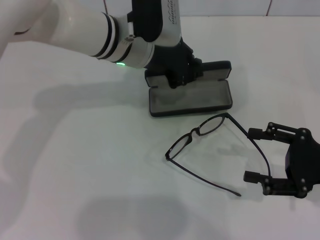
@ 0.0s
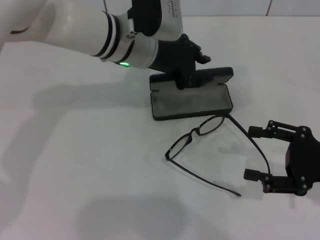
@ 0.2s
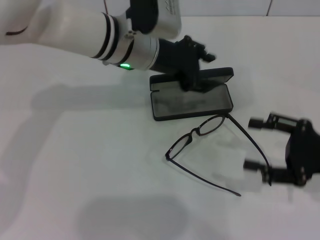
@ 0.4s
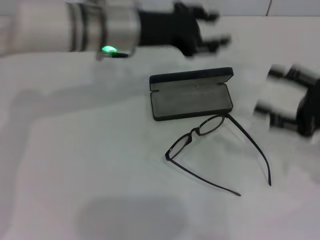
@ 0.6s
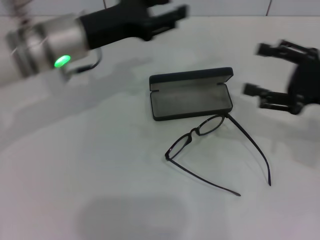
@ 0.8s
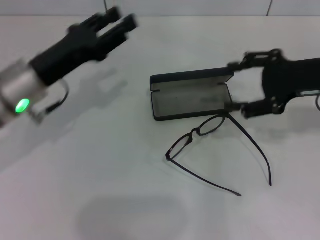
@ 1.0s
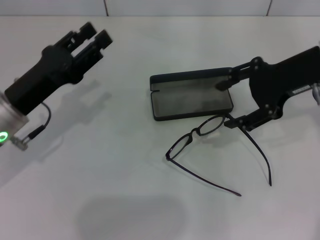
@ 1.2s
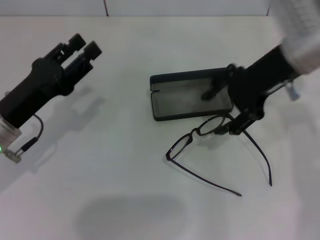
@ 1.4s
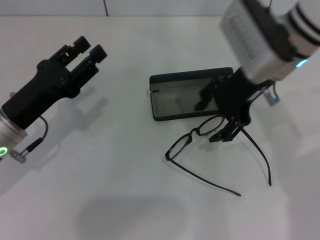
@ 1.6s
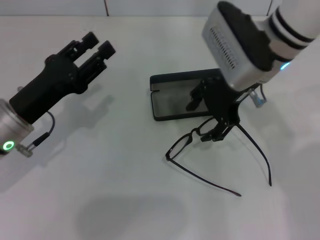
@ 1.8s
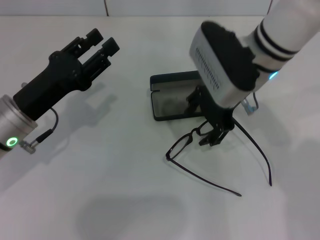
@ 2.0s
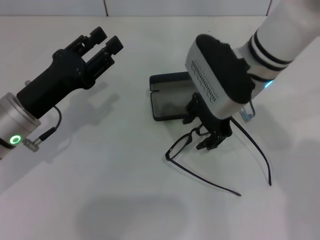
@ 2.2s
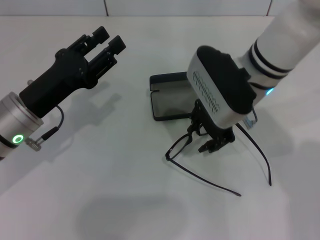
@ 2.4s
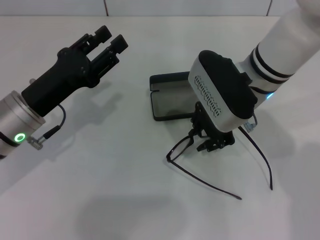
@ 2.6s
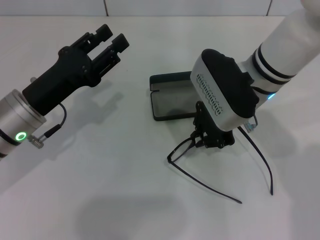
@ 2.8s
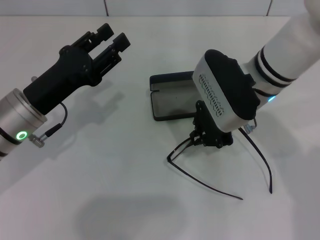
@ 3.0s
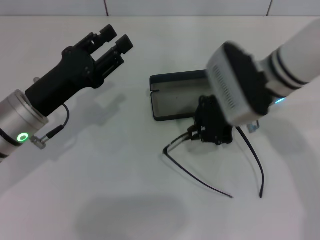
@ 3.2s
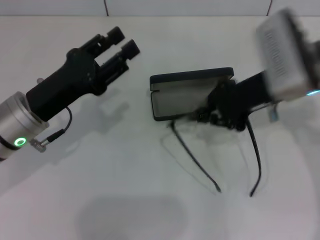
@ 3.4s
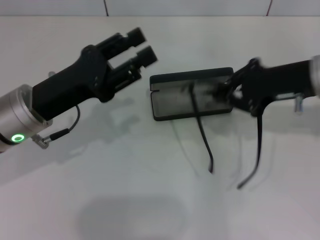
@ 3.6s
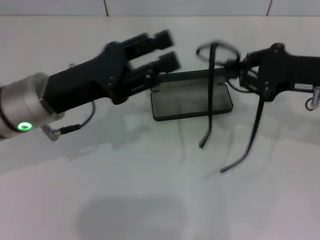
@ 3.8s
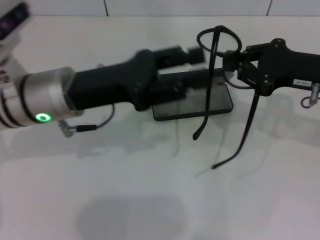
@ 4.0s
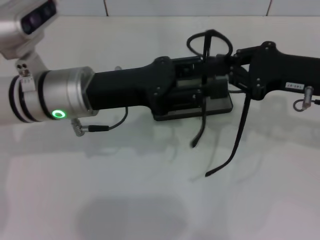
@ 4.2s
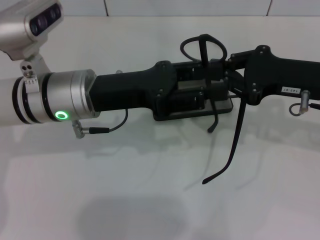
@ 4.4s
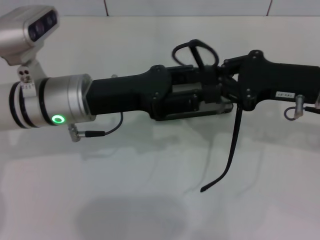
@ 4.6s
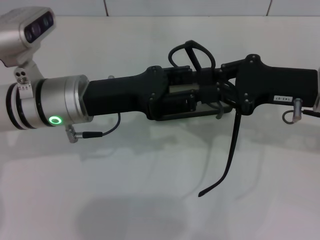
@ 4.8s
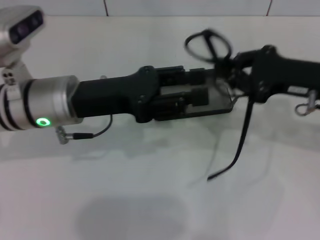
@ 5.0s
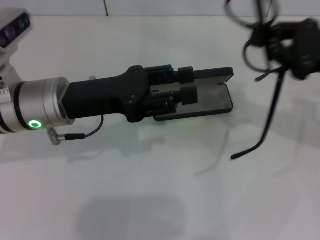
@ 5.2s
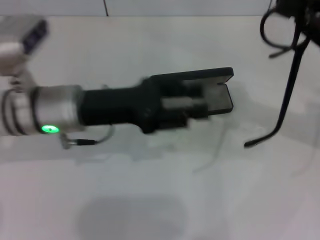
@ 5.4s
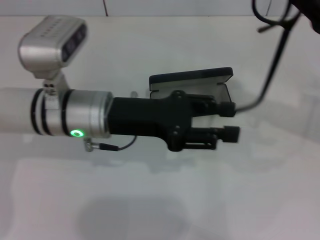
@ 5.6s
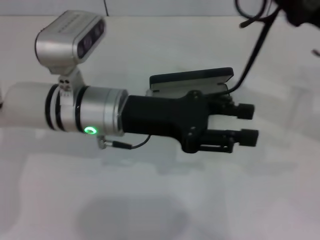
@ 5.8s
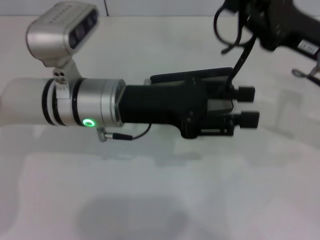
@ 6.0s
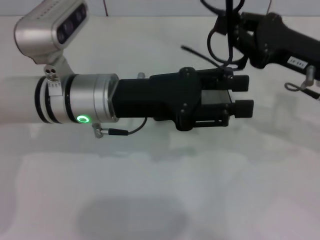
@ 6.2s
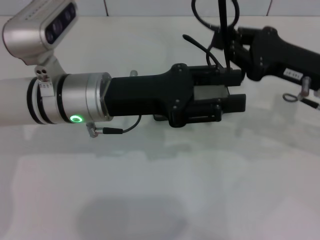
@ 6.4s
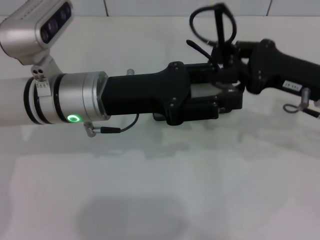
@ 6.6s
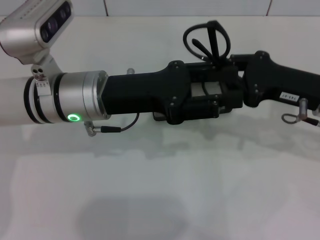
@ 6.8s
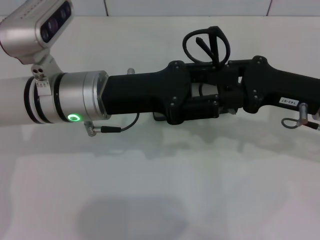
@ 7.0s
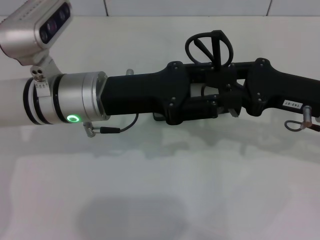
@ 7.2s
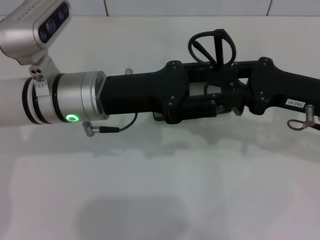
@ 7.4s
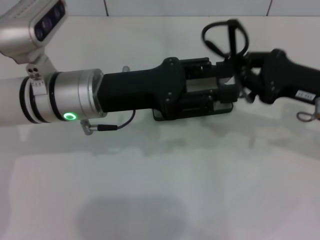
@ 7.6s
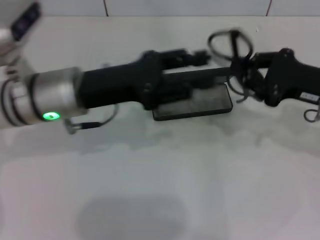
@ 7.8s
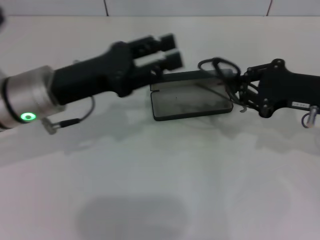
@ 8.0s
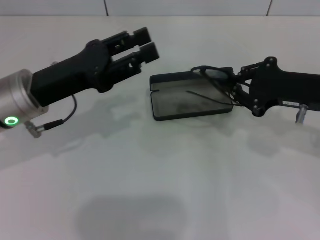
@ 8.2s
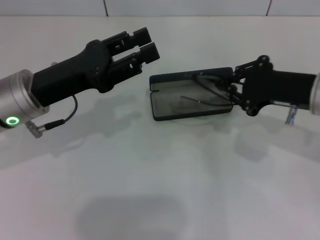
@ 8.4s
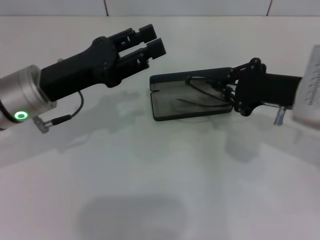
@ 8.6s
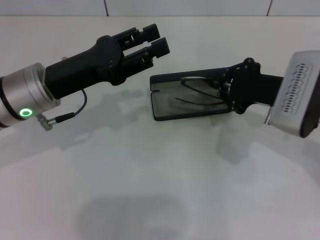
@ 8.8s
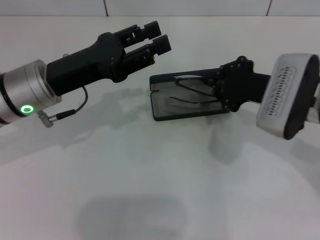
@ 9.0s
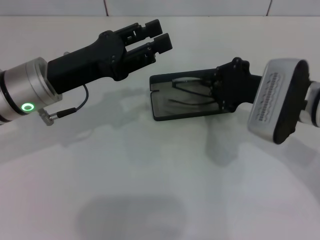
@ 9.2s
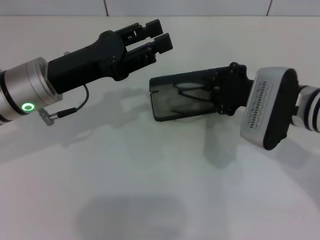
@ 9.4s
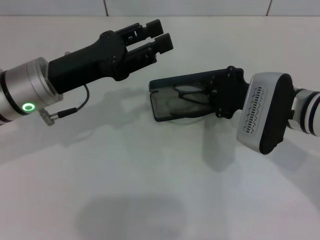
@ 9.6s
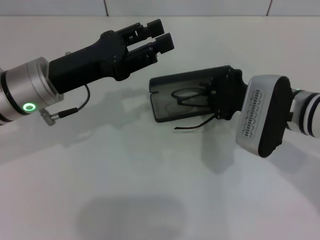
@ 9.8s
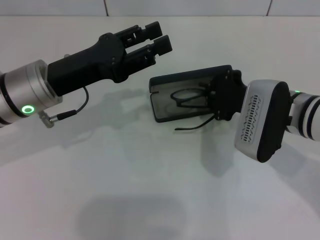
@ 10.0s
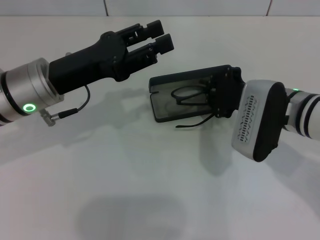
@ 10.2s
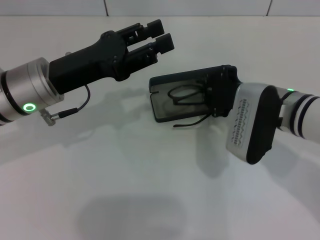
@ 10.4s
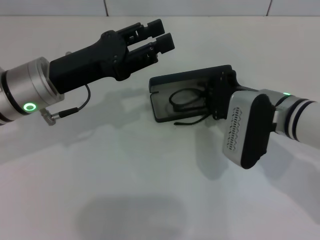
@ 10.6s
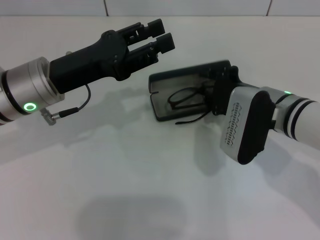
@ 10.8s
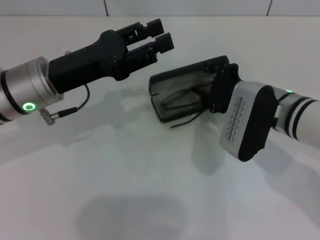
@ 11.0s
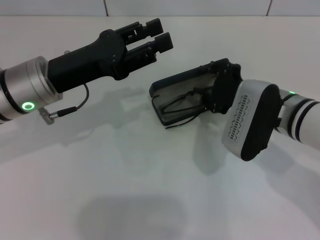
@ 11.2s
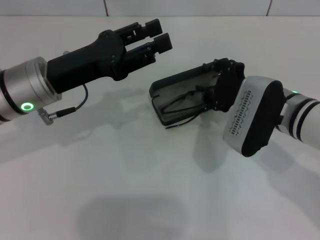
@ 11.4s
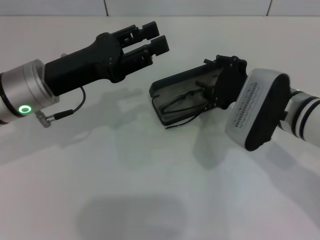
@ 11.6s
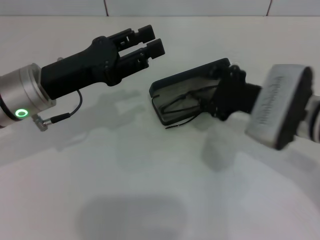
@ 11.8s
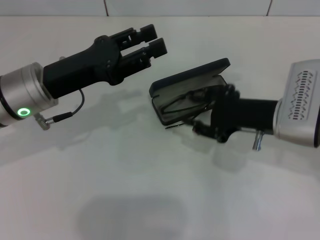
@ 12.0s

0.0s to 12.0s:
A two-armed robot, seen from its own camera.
Step, 0.4s to 2.8s: Grab the eyeglass frame with your right hand.
Step, 3.0s to 7.2s: Fold the frame with your left hand.
0.0s to 1.6s: The right gripper heads to the left, forward and upward, covering approximately 25 cm; the left gripper moves to the left, backward and downward, roughly 25 cm, and opens up.
1.6s to 3.0s: The right gripper is displaced downward by some 5 cm, and closes.
3.0s to 4.4s: The right gripper moves to the right, approximately 15 cm, while the left gripper is displaced to the right and upward by about 10 cm.
7.6s to 9.0s: The two grippers go approximately 5 cm to the left.
9.0s to 10.4s: There are only small adjustments of the grippers.
10.4s to 12.0s: The right gripper opens its fingers.

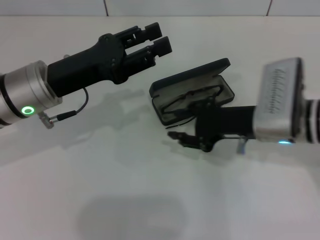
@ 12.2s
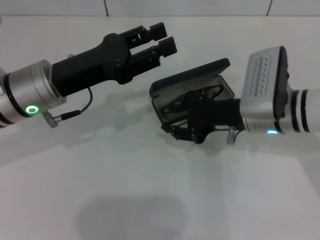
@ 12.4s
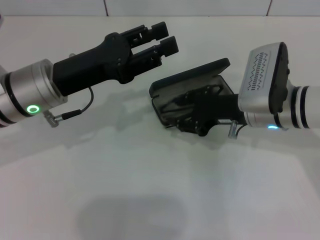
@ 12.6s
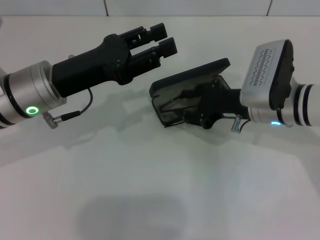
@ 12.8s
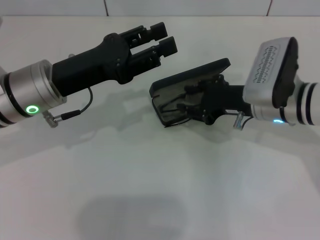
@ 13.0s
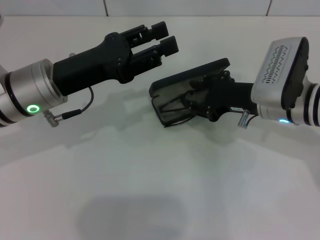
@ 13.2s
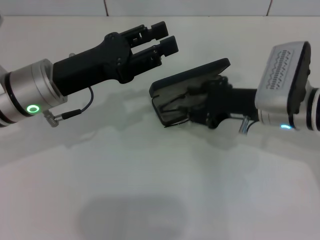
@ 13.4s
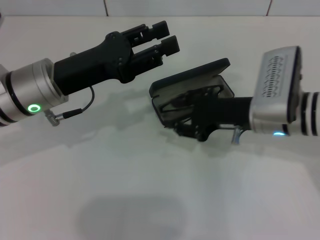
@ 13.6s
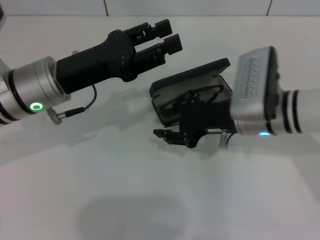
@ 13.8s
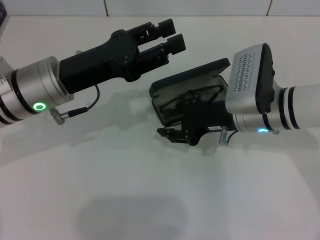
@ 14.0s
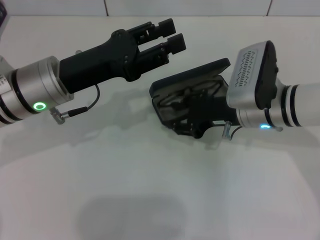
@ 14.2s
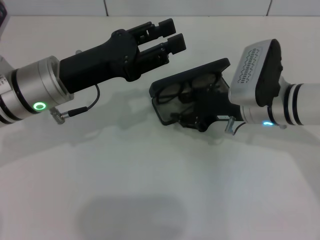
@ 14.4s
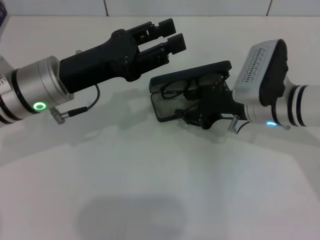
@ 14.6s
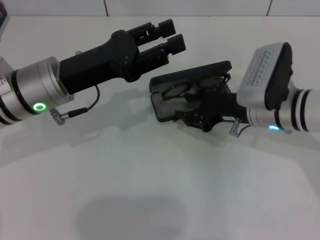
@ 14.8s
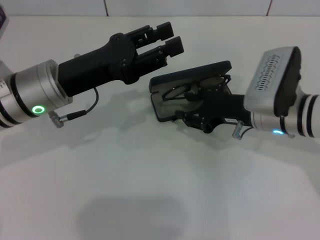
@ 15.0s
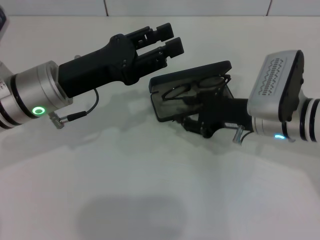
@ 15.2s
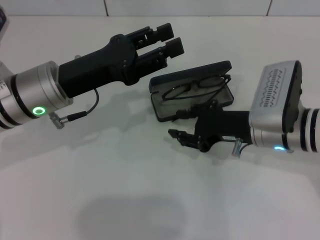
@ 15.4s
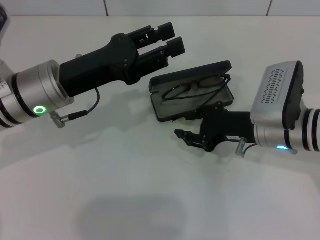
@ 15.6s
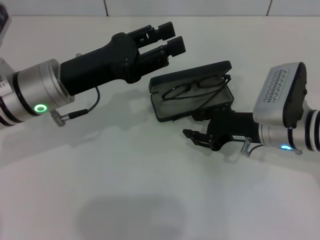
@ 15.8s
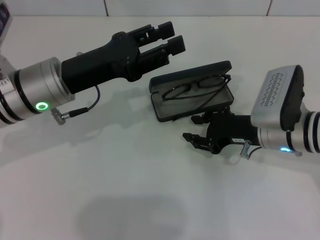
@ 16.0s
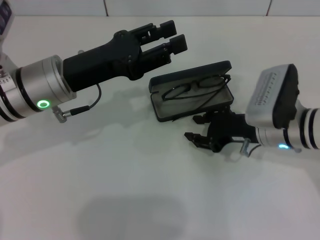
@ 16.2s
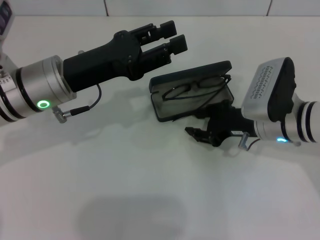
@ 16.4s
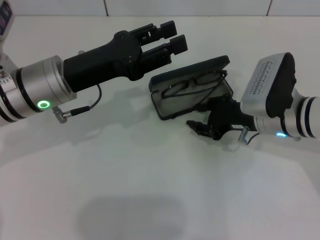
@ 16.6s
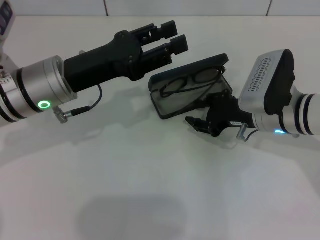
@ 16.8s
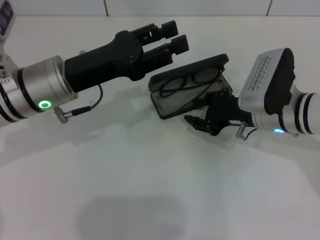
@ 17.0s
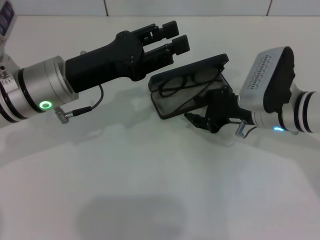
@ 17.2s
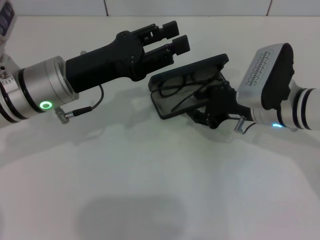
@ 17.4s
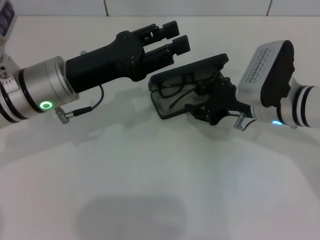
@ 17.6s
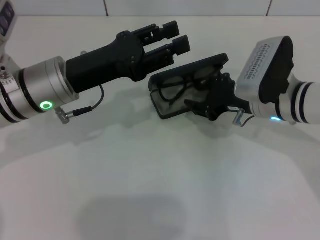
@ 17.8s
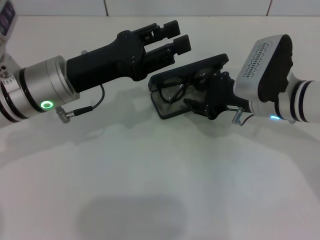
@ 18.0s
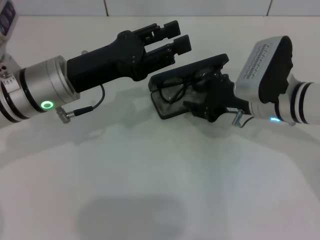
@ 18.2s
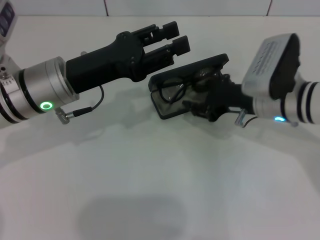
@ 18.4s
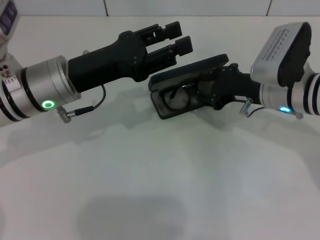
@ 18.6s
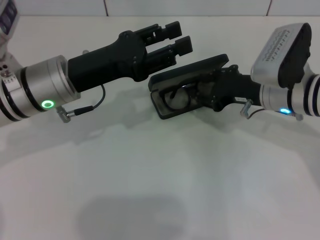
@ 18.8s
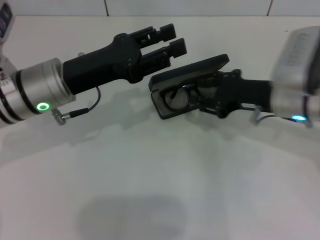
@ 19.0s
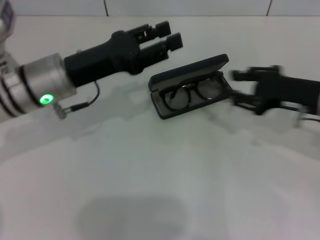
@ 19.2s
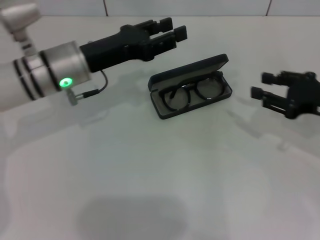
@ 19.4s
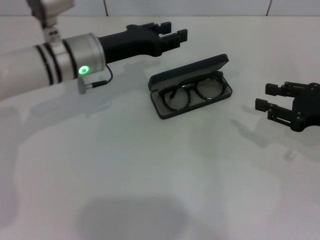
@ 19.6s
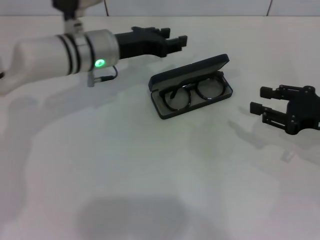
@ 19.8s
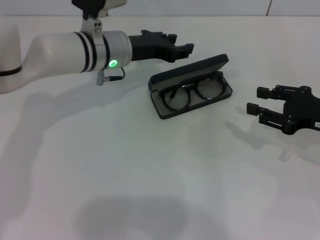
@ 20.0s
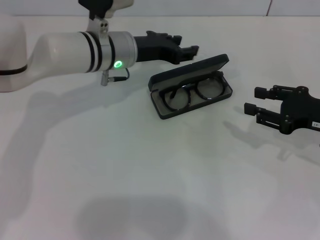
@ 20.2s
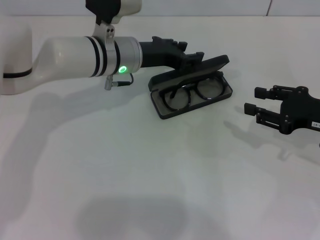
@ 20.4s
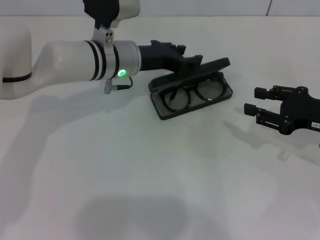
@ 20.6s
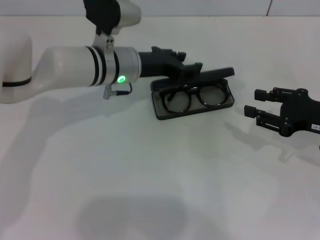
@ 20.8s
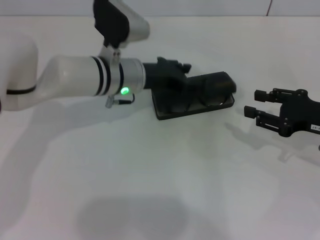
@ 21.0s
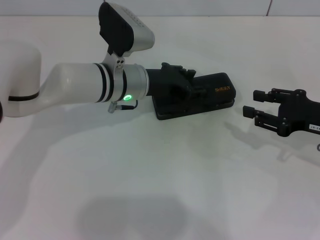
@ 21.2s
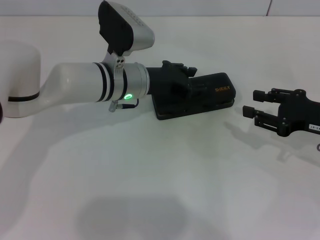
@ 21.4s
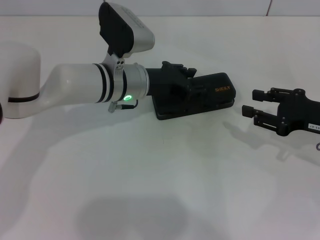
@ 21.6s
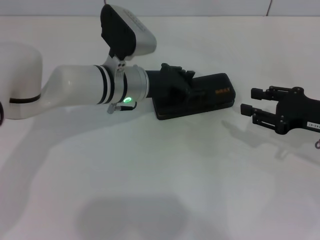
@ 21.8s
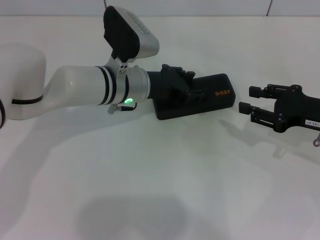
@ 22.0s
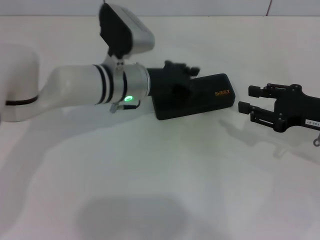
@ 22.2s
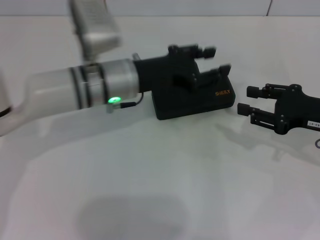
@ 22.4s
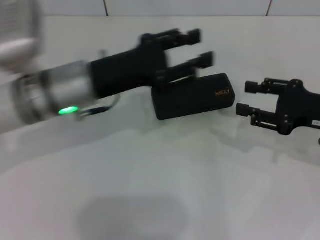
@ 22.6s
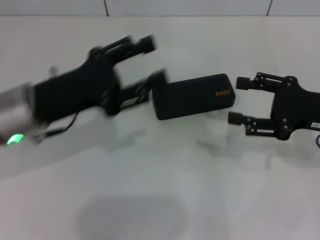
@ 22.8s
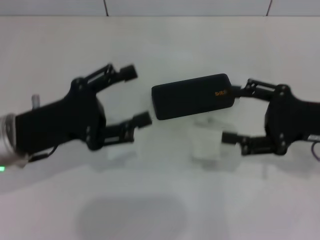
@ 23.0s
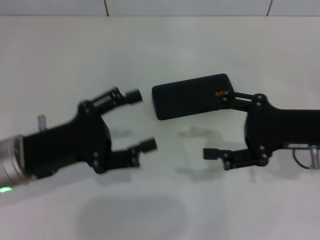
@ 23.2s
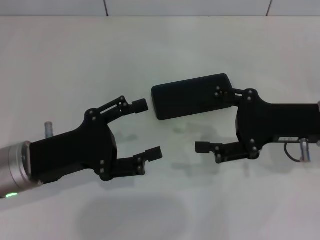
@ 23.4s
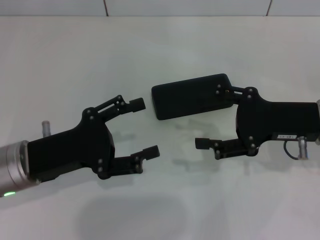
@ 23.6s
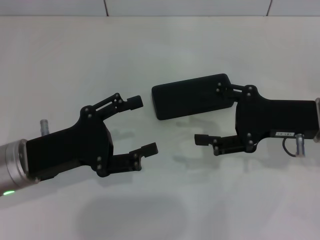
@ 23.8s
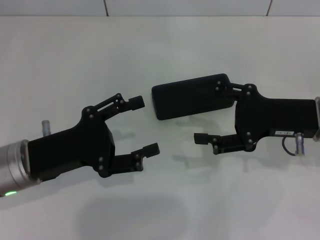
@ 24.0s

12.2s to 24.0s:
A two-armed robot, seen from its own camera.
Step, 12.2s to 18.6s: Put the glasses into the case with your right hand.
Step, 19.0s to 21.0s: Close the glasses case with your left hand.
12.2s to 18.2s: The grippers make only small movements.
18.2s to 19.6s: The right gripper travels to the right by roughly 15 cm. The left gripper goes some 5 cm forward.
19.6s to 21.0s: The left gripper goes about 5 cm to the right.
21.0s to 22.6s: The left gripper shifts approximately 10 cm backward and to the left.
22.6s to 24.0s: The right gripper goes some 5 cm to the left, and opens up. Meanwhile the left gripper heads backward and to the left, covering about 10 cm, and opens up.
